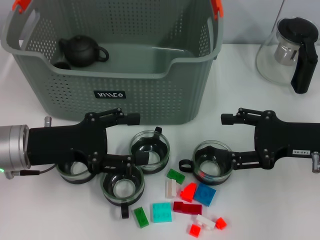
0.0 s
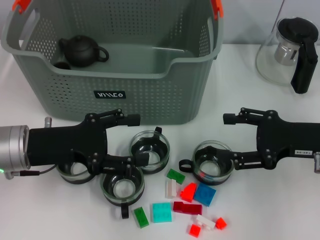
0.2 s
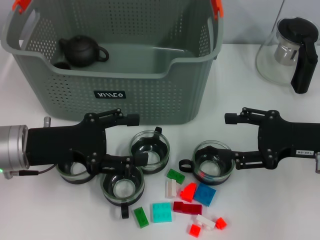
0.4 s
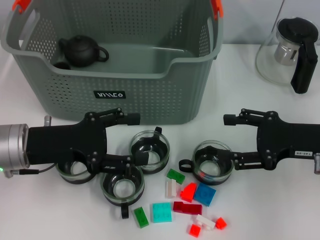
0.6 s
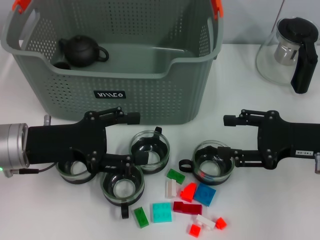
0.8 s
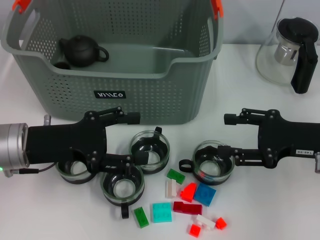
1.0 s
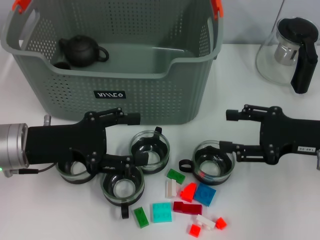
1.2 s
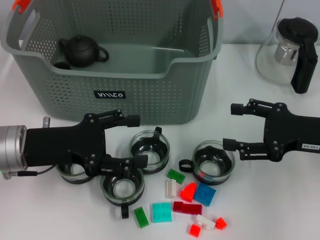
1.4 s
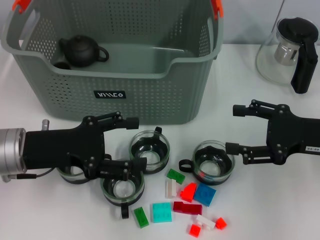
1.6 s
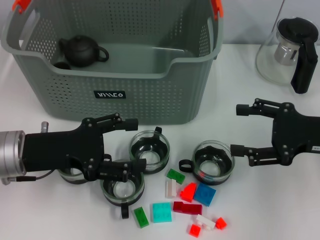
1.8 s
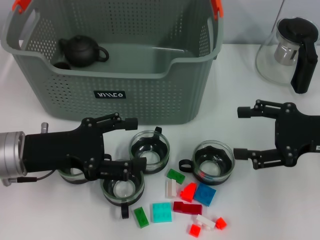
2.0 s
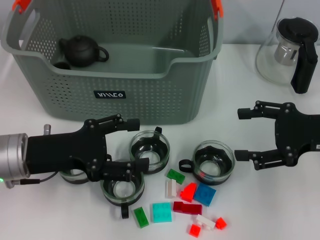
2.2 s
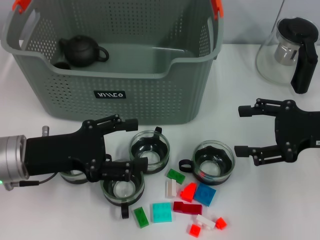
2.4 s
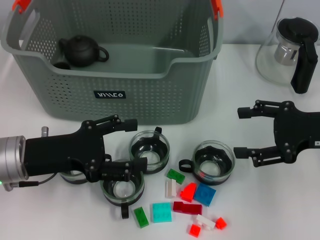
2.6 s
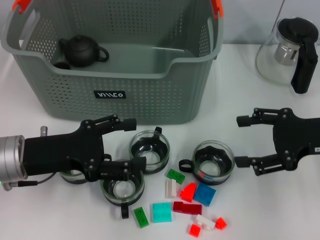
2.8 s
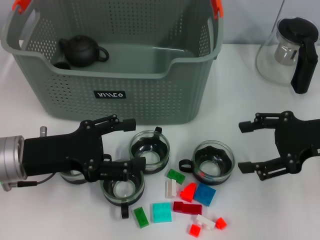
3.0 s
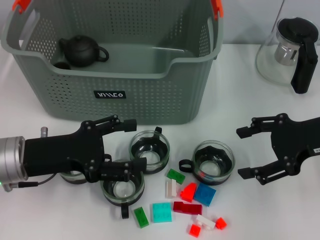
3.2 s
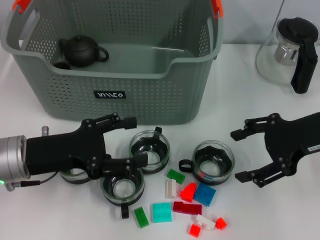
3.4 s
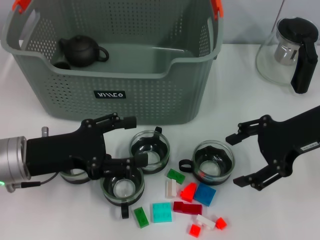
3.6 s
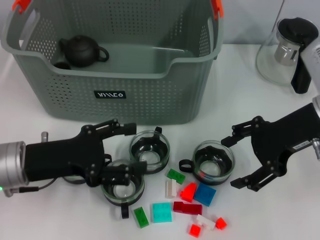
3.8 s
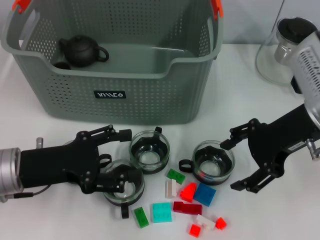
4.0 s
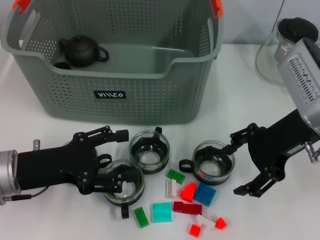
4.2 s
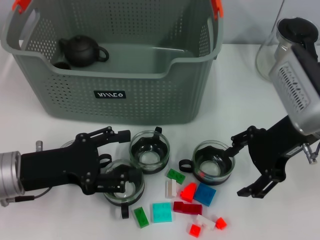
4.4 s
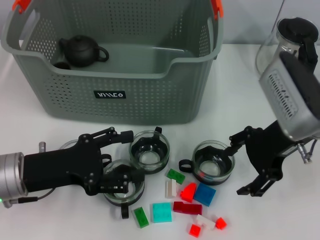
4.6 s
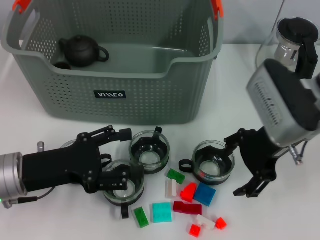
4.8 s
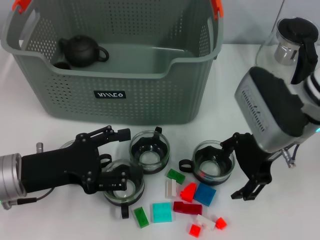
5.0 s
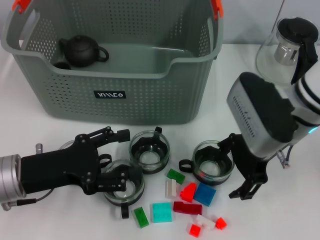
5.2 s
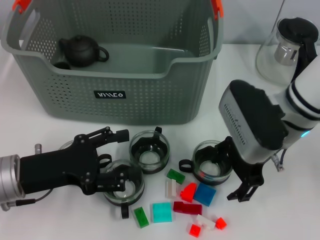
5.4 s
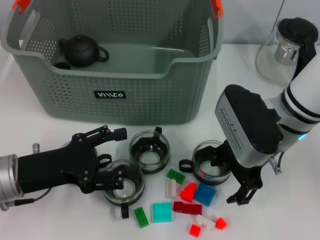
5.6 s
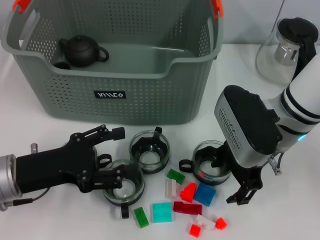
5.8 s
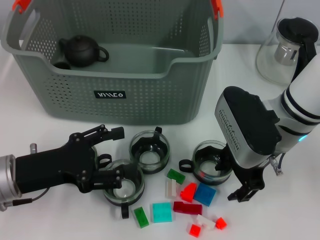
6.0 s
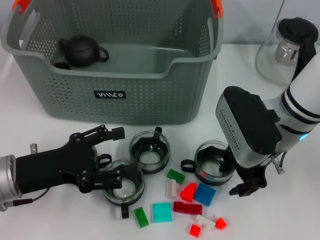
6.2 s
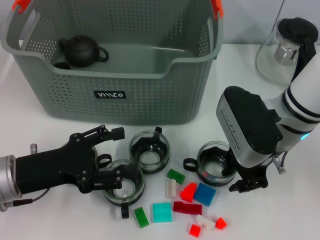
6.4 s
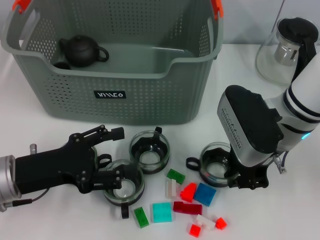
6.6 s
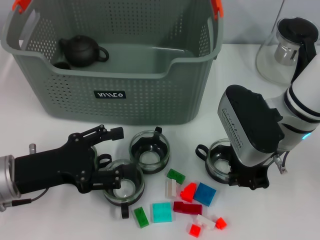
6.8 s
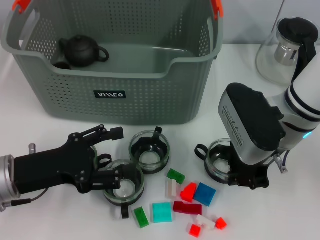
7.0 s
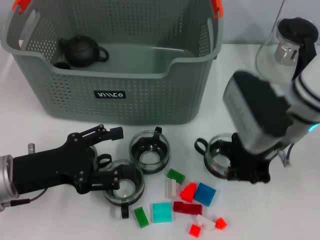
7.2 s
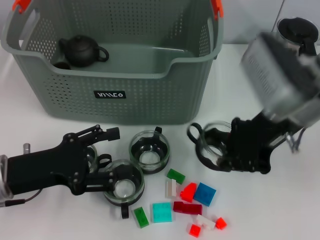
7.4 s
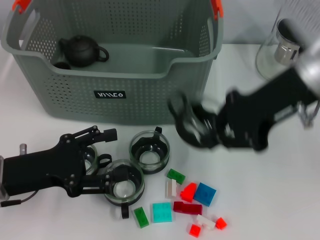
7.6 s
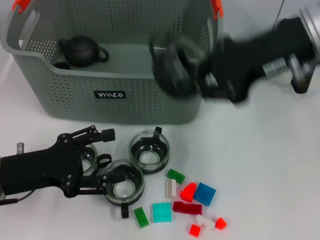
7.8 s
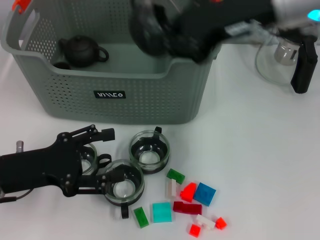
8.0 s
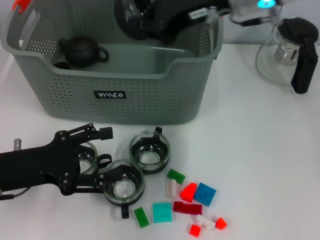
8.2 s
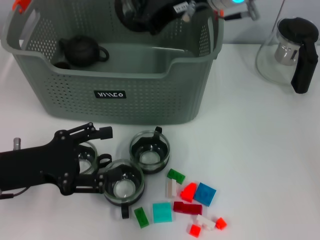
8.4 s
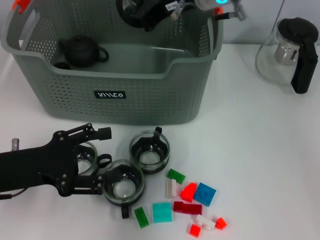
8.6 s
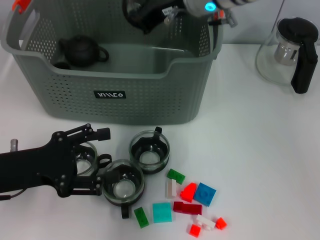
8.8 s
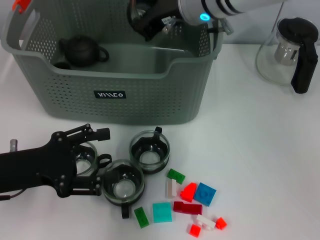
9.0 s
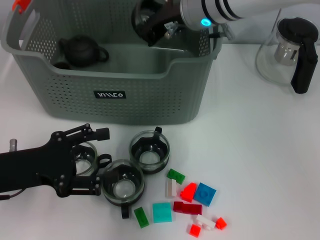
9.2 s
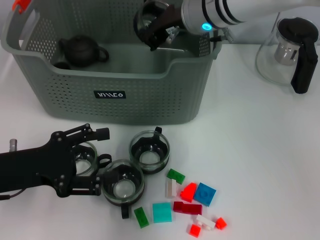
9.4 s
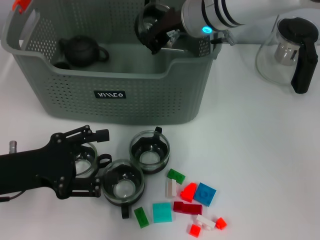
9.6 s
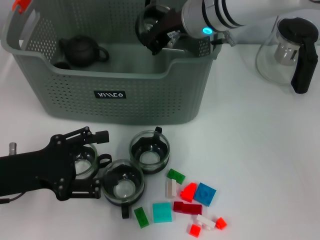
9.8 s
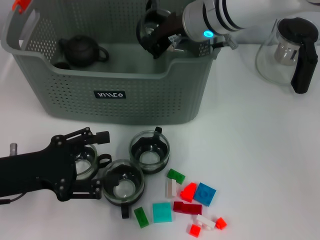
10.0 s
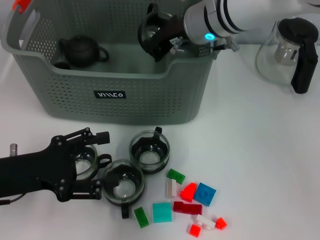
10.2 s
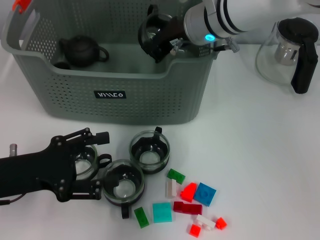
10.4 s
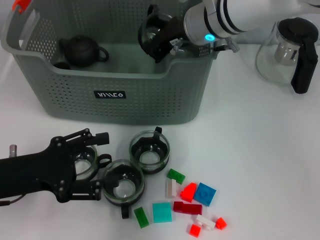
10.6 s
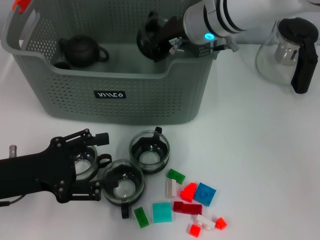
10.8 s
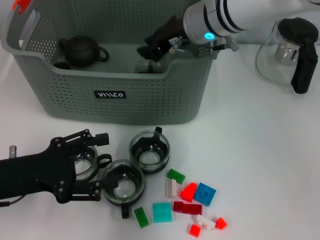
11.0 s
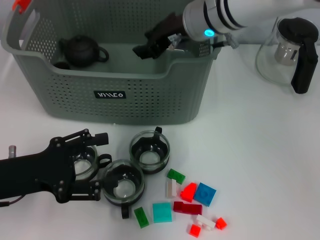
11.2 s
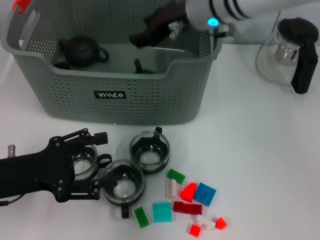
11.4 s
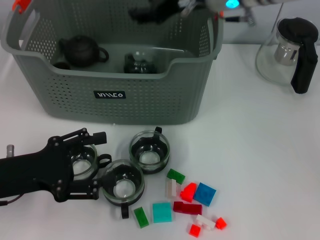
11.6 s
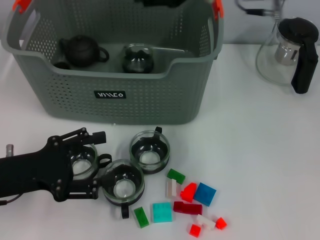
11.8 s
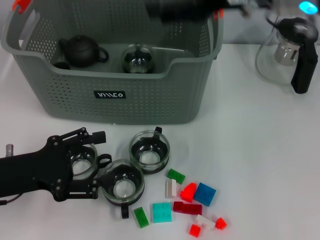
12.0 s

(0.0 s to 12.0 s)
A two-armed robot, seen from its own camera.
Task of the whole recording: pick up the teacup on the table and place it into the storage bin, pick up the block on the table and place it into the storage bin.
Step, 0.0 s - 6.4 s: Grasp the cup with right gripper.
Step, 6.8 s - 11.0 s: Place the cup in the storage box with right gripper.
0.0 s - 3.0 s: There are only small adjustments of the grippers.
3.0 s - 4.4 s: The right gripper heads to the left, covering some 10 cm.
4.4 s - 6.0 s: The right gripper shifts roughly 5 cm to the left.
6.0 s - 7.6 s: The right gripper heads upward, covering some 10 cm, and closes its fingers.
7.6 s - 9.0 s: The right gripper is displaced to the left and forward by approximately 15 cm.
9.0 s - 10.4 s: The grippers stay close to where they were, moving slightly.
10.4 s - 12.0 s: The right gripper is displaced to the right, upward and backward by about 15 cm, and opens.

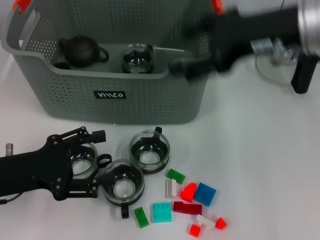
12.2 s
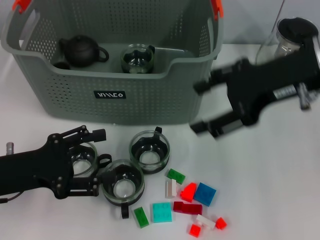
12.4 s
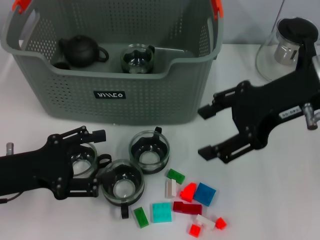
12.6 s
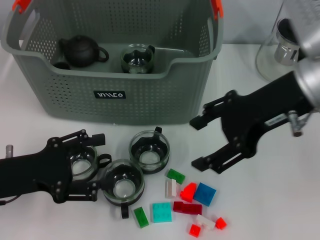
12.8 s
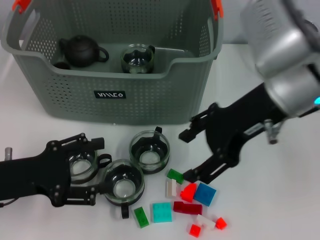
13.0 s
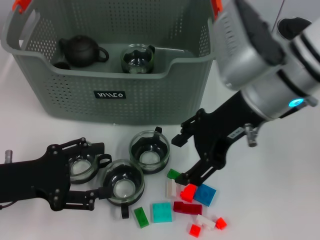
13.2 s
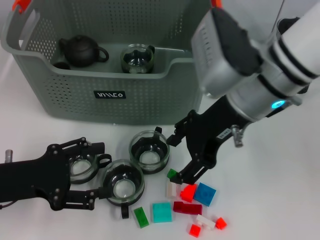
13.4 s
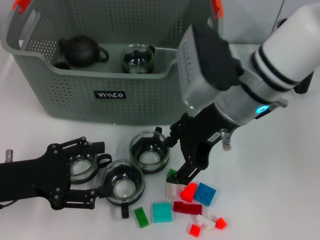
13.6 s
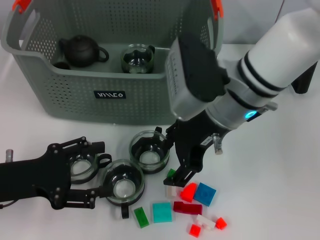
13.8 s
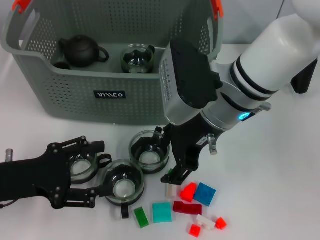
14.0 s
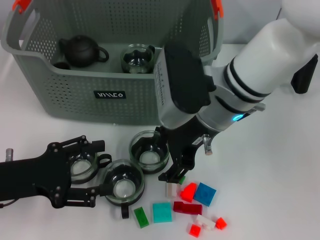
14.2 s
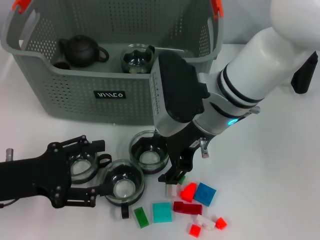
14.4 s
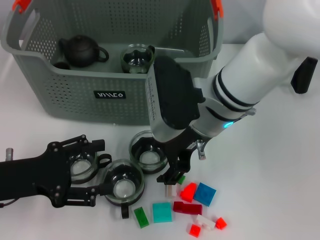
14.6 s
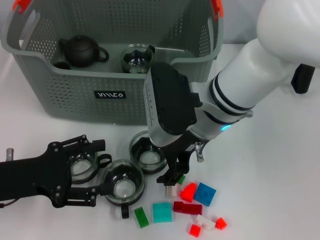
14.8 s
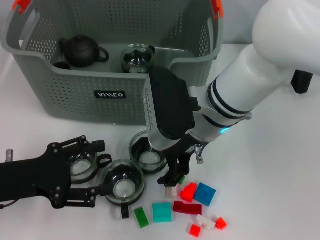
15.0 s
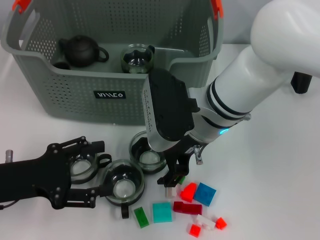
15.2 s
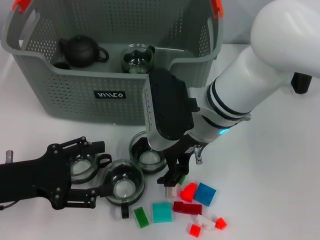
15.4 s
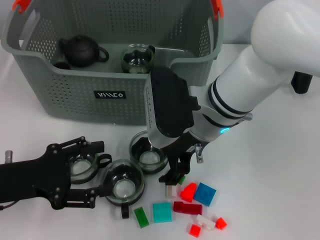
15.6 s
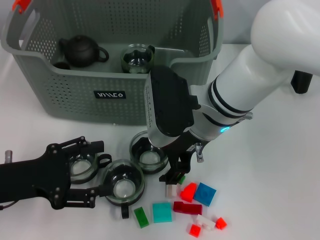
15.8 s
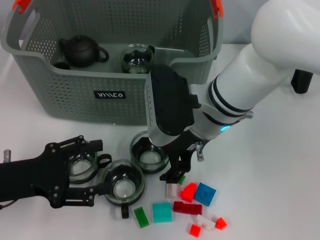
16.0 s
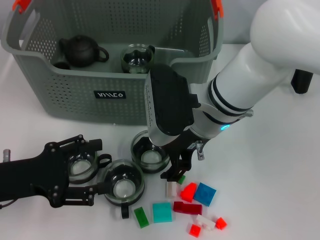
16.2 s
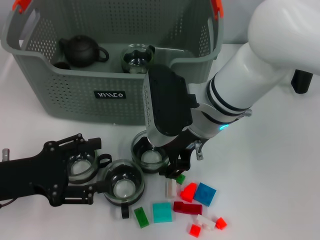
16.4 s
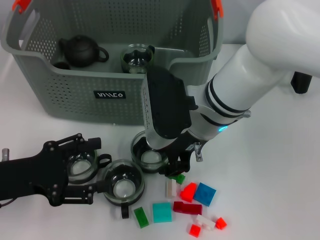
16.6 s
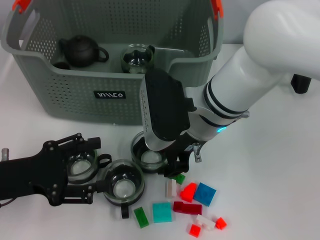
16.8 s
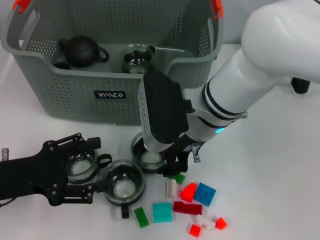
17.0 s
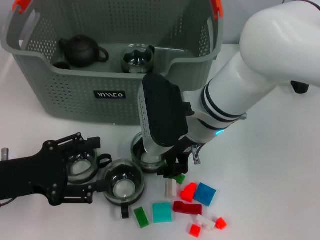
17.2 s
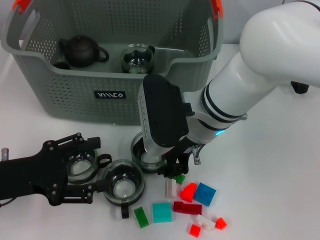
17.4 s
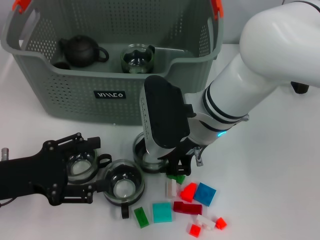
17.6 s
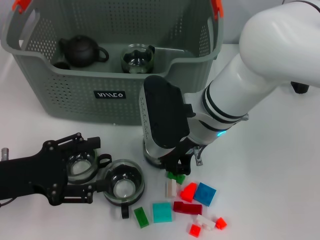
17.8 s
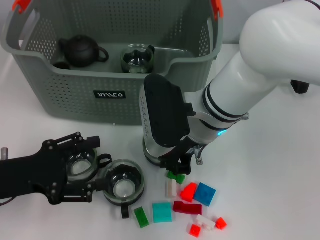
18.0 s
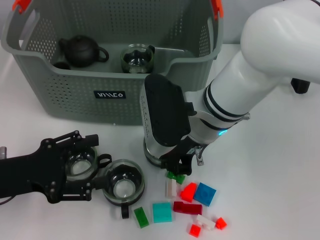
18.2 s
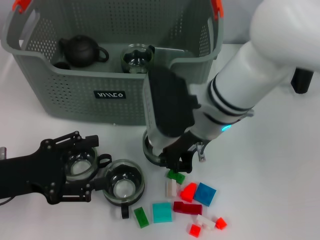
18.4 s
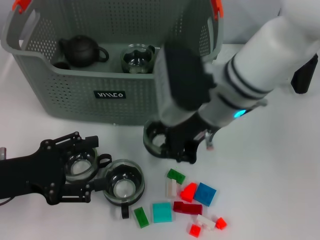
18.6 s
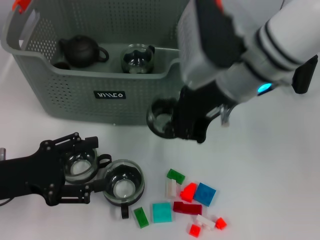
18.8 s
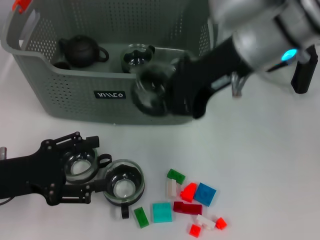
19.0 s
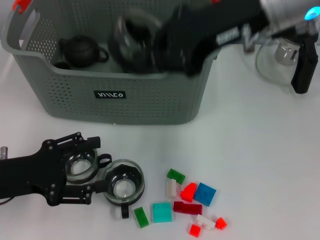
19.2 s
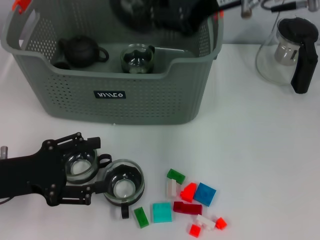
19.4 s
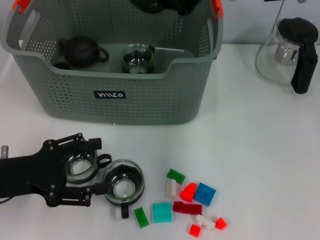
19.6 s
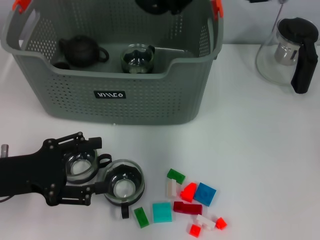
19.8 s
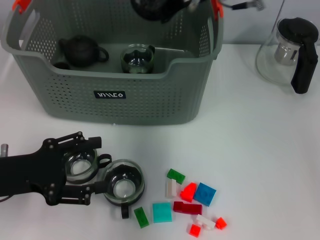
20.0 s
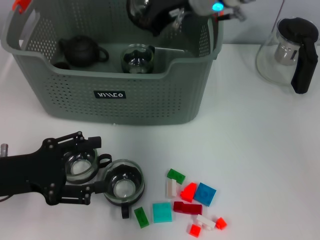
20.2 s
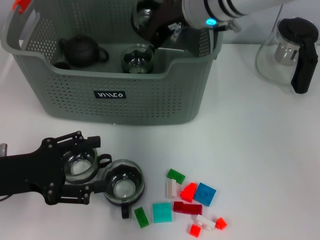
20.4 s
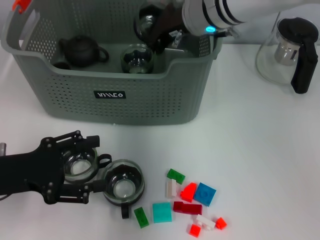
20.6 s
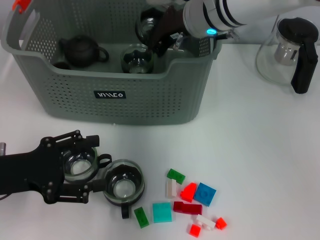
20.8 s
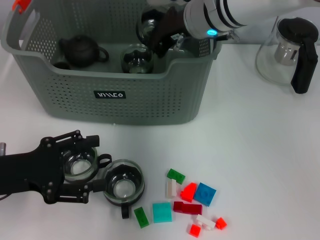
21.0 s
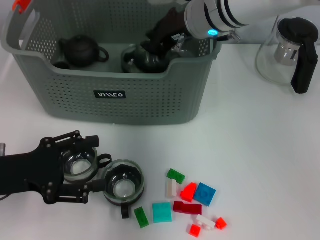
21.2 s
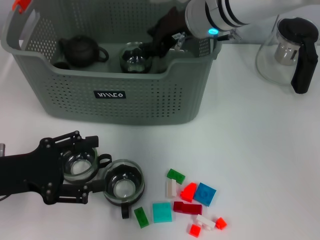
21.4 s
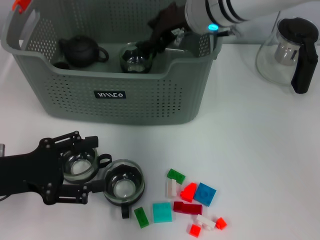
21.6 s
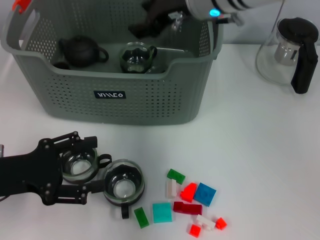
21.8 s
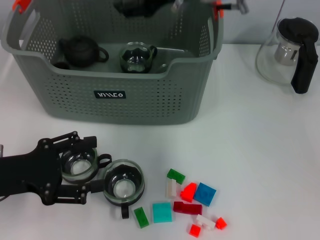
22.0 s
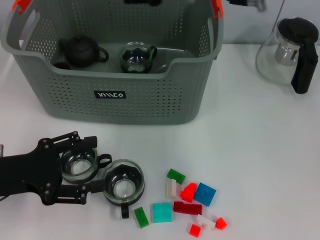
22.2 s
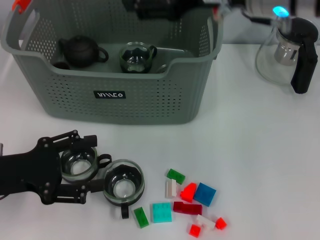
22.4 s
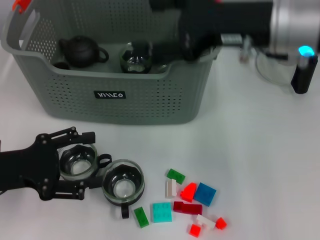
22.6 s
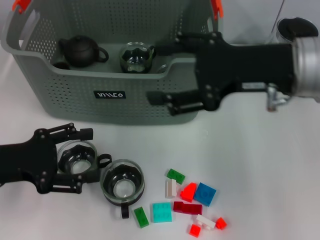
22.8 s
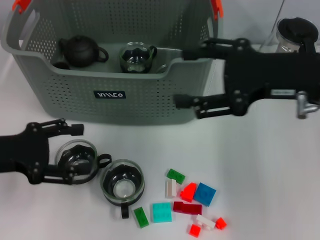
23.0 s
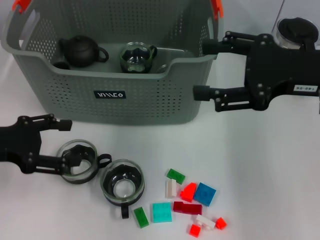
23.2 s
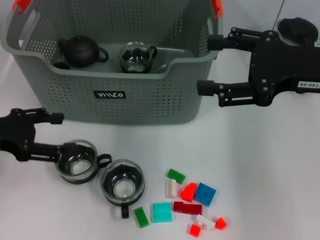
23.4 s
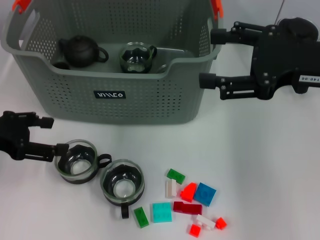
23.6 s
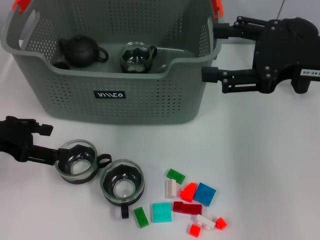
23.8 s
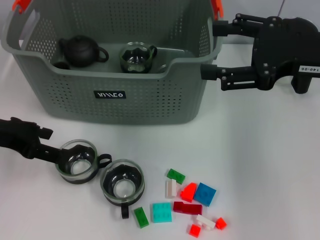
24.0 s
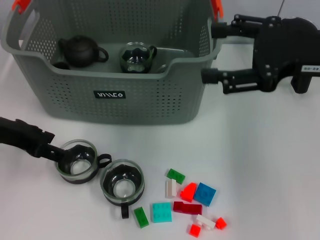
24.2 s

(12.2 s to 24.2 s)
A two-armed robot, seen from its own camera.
Task of the whole recording: pick up the teacup on the table and place it into the storage bin, pick up the block on the table and place it into the storage bin.
Step, 12.2 s - 17.6 s: Grasp the cup with right gripper.
Step, 17.8 s - 21.2 s: Place the cup in the storage box with right gripper.
12.2 s - 13.8 s: The right gripper goes some 15 cm to the left and downward.
13.8 s - 15.2 s: The grippers stay close to where they were, moving slightly.
15.2 s - 16.6 s: Both grippers stay about where they are.
16.6 s - 18.2 s: The right gripper closes.
18.2 s - 19.8 s: The right gripper moves upward, forward and to the right, some 20 cm.
19.8 s - 21.2 s: The right gripper is displaced downward and to the left by some 10 cm.
21.2 s - 22.6 s: The right gripper heads backward and to the right, covering some 15 cm, and opens up.
22.6 s - 24.2 s: The left gripper travels forward and upward by about 10 cm; the right gripper is displaced to the right by roughly 10 cm.
